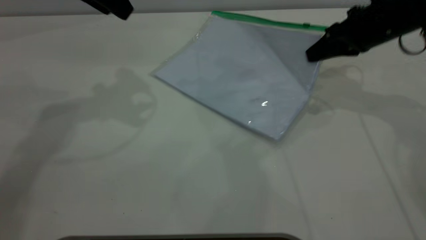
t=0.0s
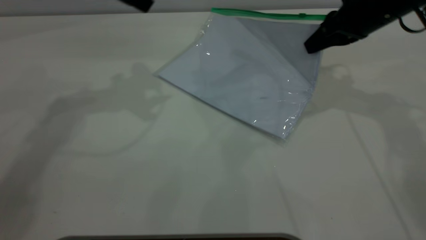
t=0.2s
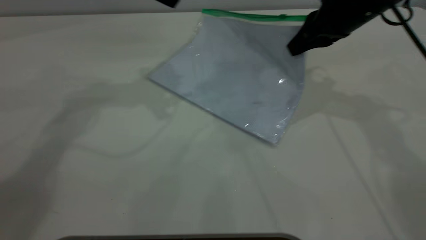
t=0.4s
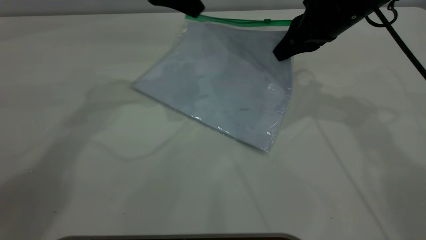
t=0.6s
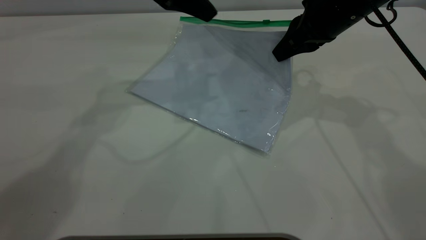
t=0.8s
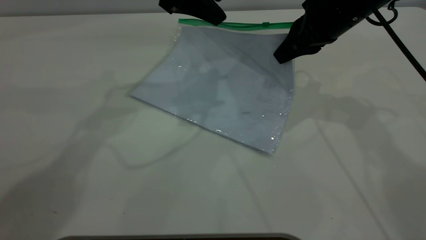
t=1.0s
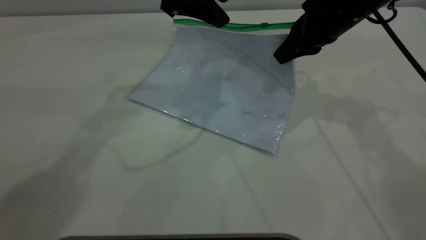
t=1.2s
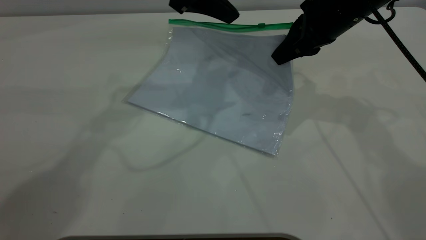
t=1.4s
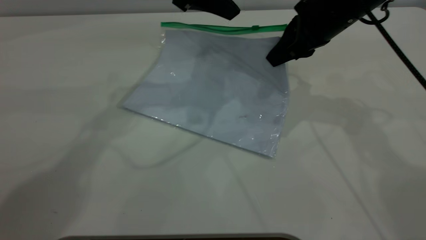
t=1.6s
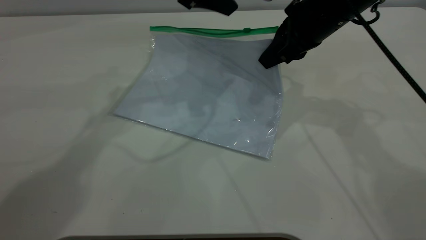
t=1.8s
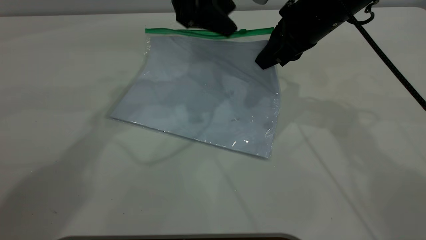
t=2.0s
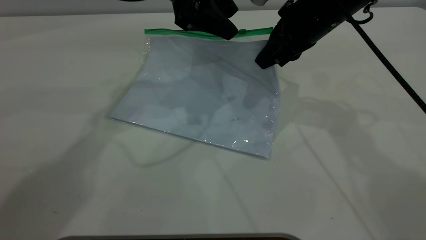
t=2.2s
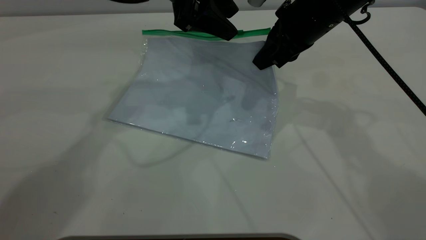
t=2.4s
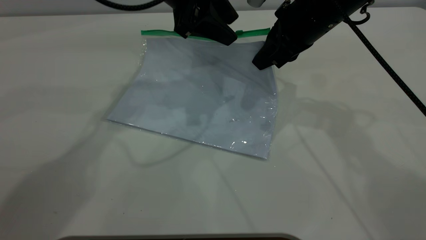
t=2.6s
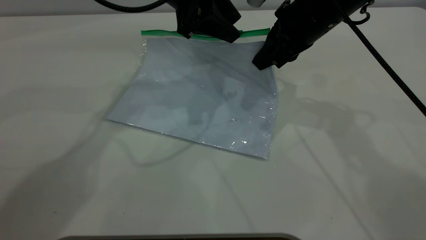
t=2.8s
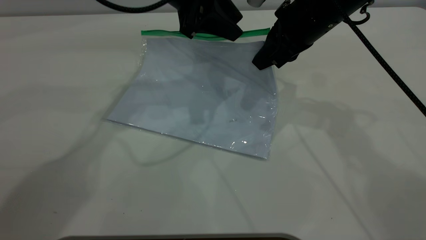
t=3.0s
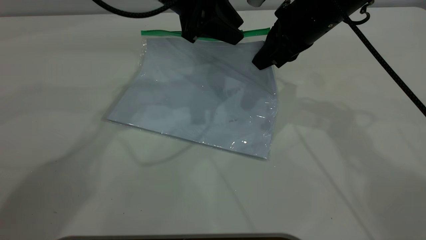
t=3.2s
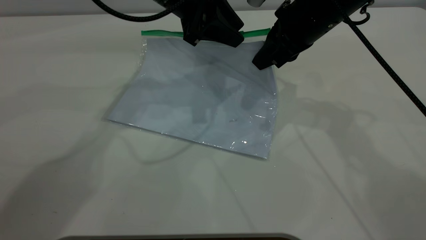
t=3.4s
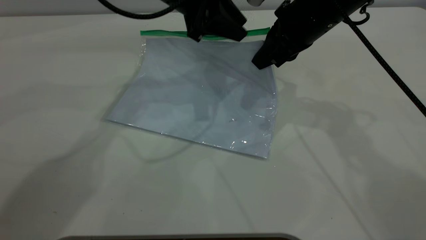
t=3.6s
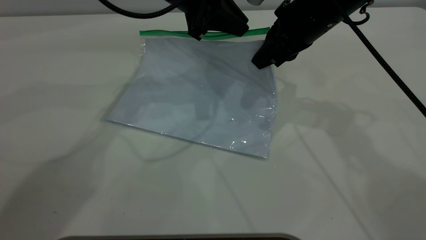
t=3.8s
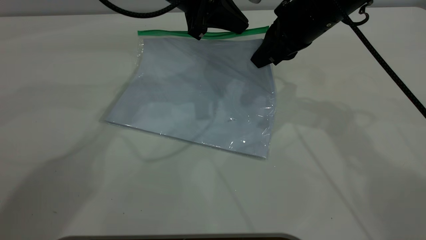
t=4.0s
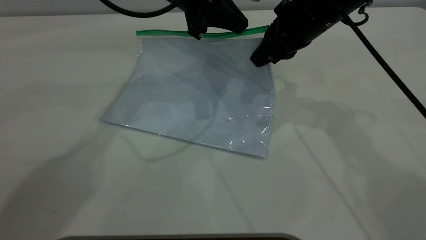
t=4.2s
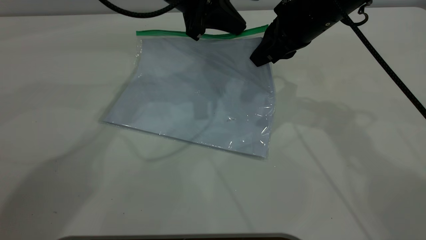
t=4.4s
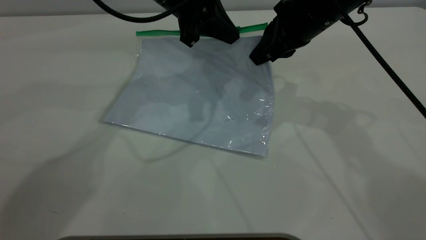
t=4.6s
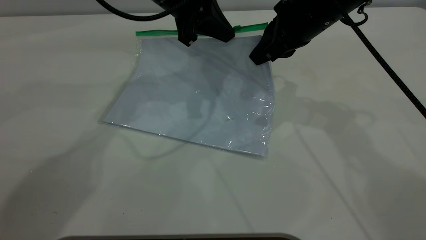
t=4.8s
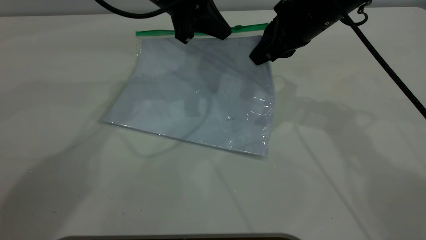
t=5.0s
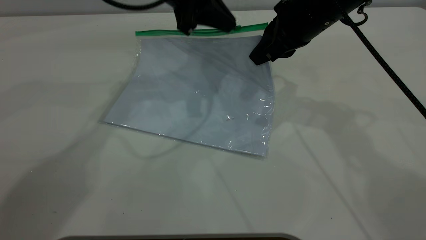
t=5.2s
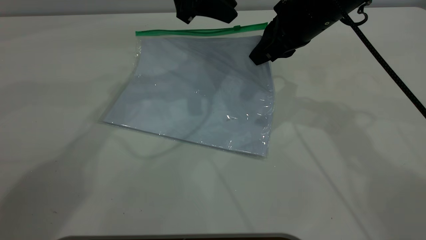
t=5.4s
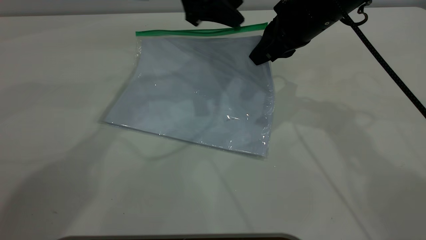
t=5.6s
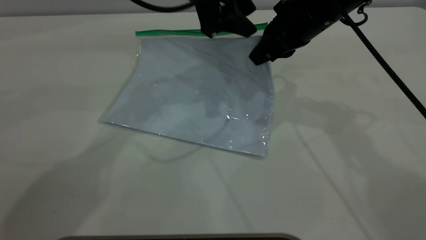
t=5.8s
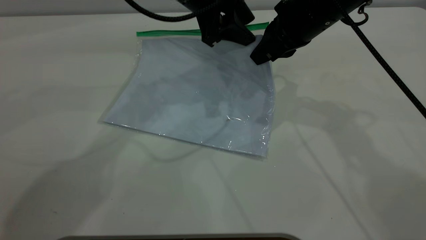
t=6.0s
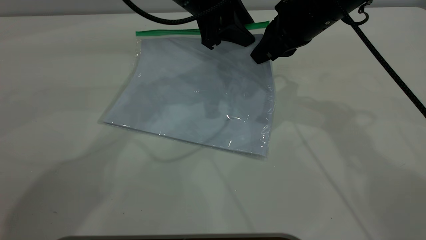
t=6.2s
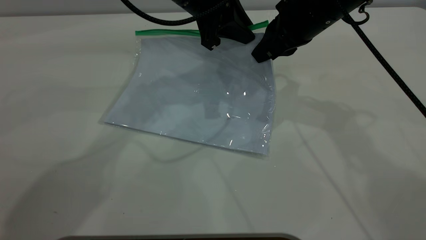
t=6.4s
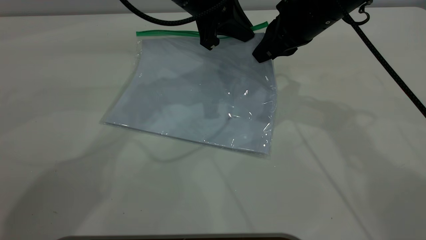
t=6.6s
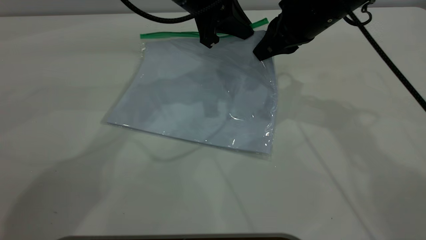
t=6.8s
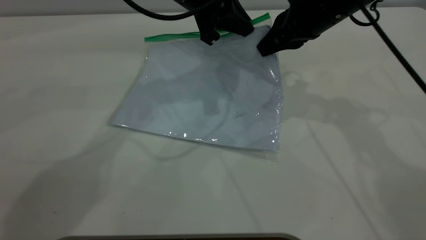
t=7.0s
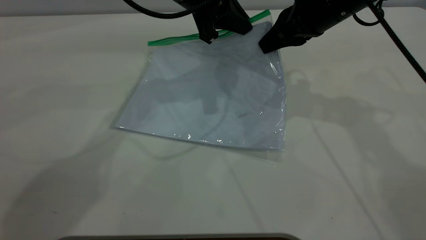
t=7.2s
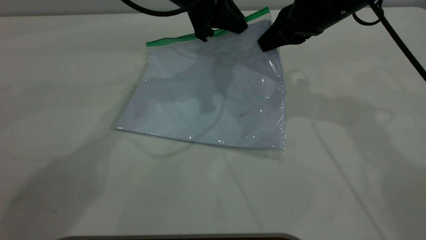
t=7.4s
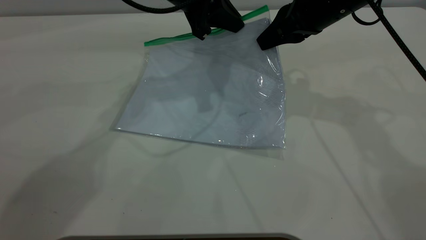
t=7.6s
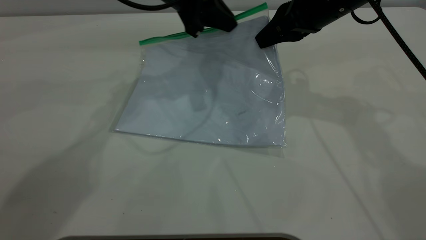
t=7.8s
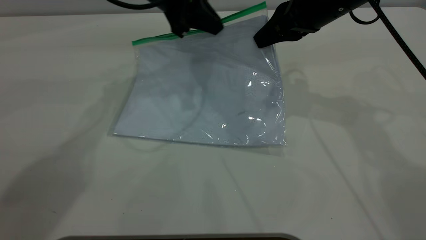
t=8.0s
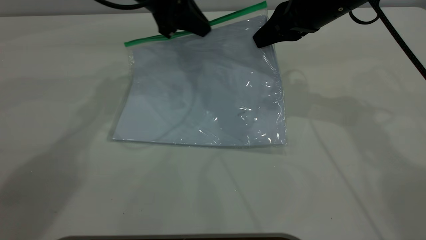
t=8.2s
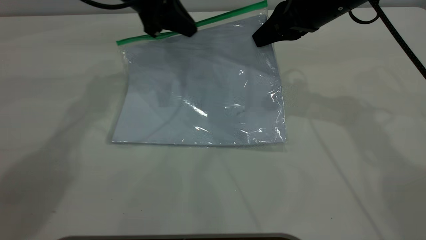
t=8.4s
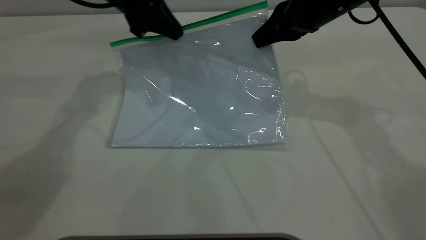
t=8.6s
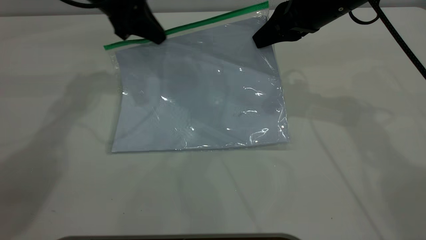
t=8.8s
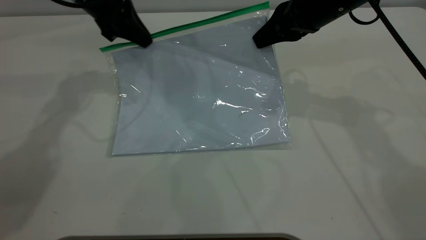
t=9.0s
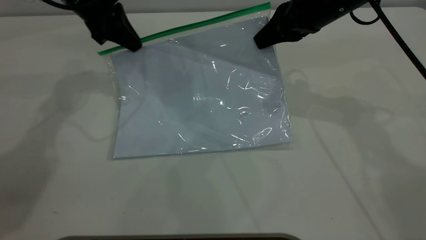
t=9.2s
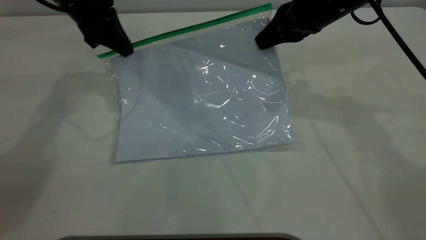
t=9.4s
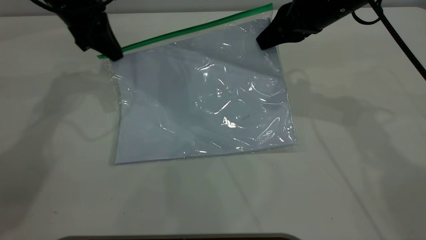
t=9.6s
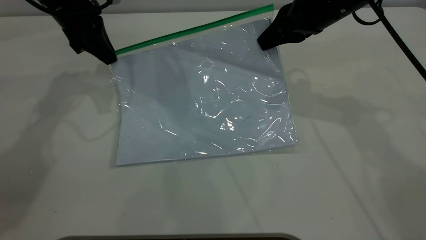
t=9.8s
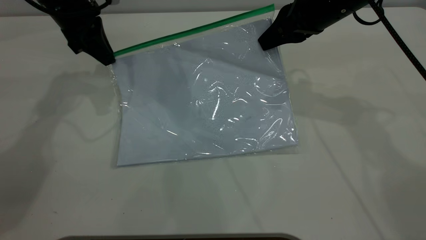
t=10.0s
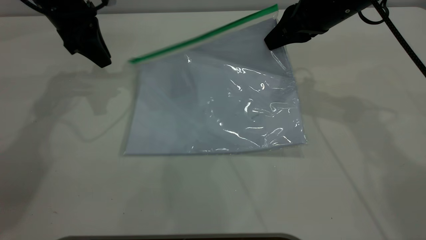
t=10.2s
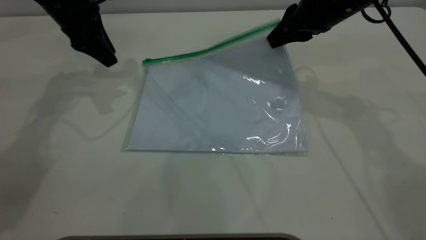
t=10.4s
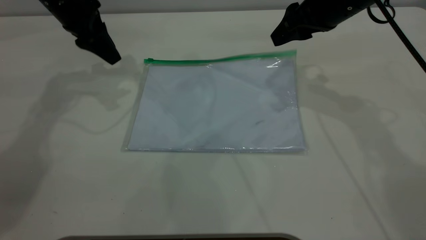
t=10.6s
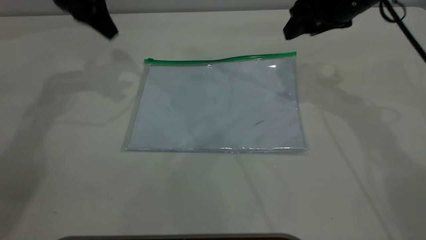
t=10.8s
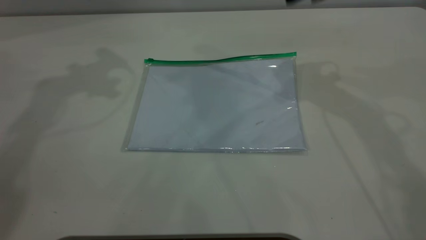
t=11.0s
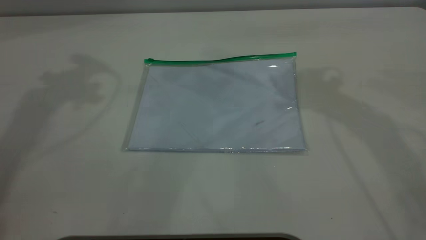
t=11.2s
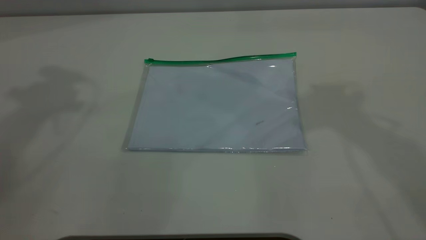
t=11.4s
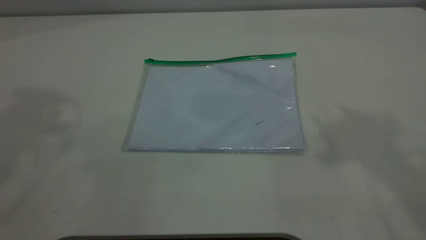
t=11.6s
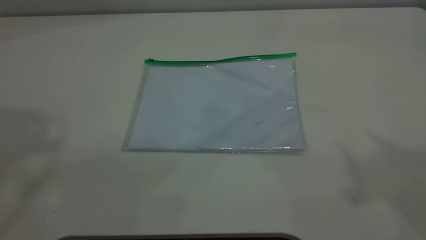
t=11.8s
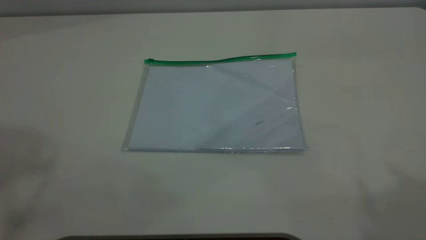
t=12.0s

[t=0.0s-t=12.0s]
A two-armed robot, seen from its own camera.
Step, t=0.2s to t=10.0s: Pulling up the zipper on the transparent plastic bag with the left gripper to close it.
t=0.0s to t=1.6s: The right gripper is displaced to the left by some 10 cm, while the left gripper moves to the right, roughly 15 cm.
t=1.6s to t=3.0s: There are only small adjustments of the grippers.
t=3.0s to t=4.4s: The left gripper closes.
t=4.4s to t=6.0s: The left gripper opens its fingers.
t=6.0s to t=7.6s: The left gripper closes up.
t=7.6s to t=9.0s: The left gripper moves to the left, some 15 cm.
t=9.0s to t=10.4s: The right gripper opens its fingers, while the left gripper opens its fingers.
t=10.4s to t=12.0s: Both grippers move upward and backward, approximately 40 cm. The right gripper opens.

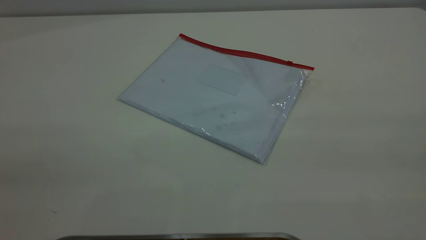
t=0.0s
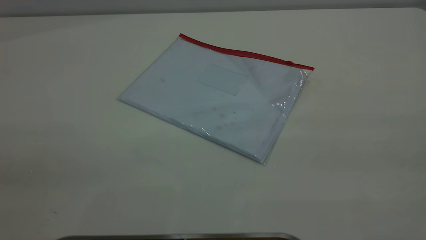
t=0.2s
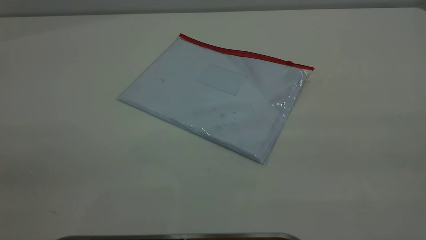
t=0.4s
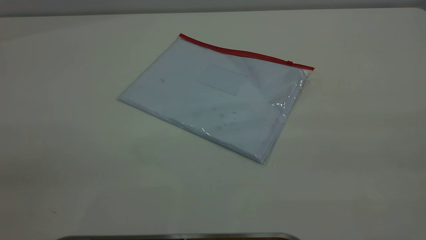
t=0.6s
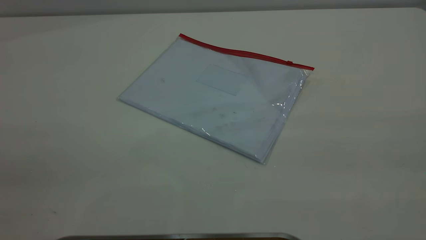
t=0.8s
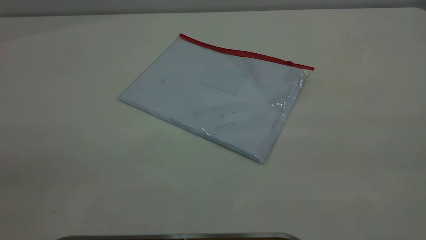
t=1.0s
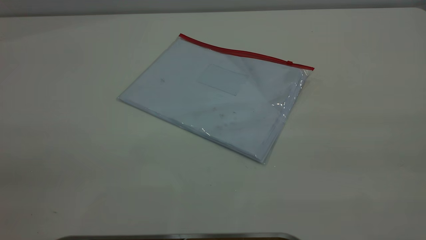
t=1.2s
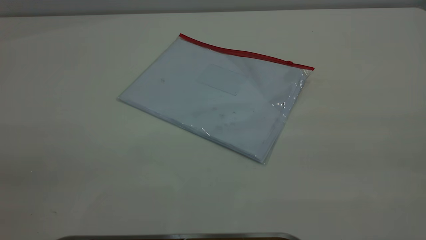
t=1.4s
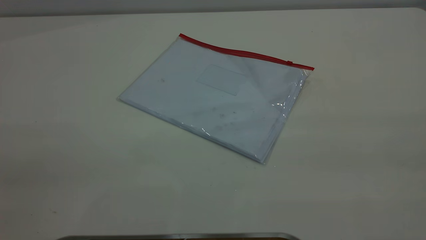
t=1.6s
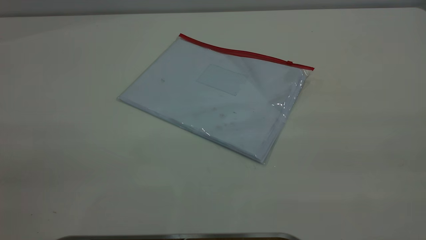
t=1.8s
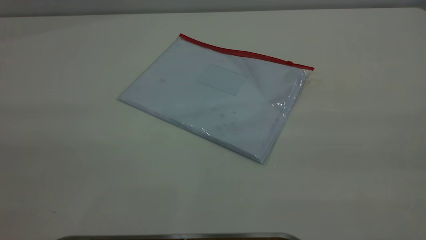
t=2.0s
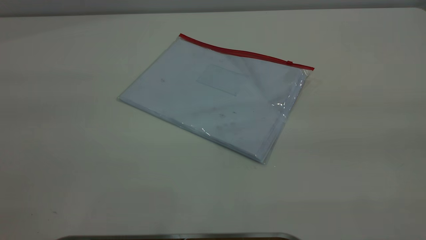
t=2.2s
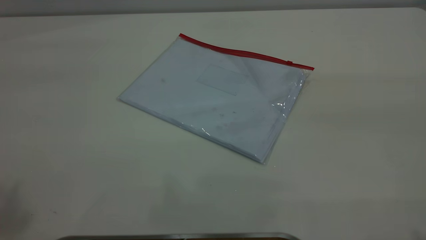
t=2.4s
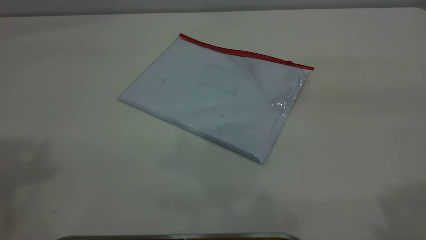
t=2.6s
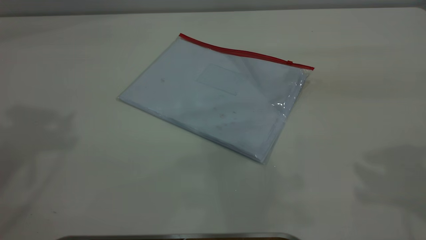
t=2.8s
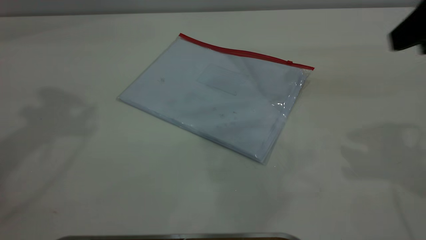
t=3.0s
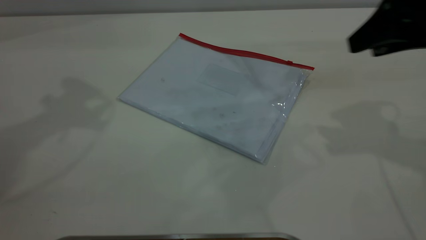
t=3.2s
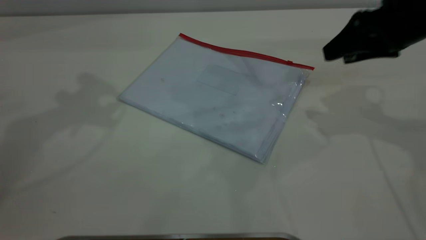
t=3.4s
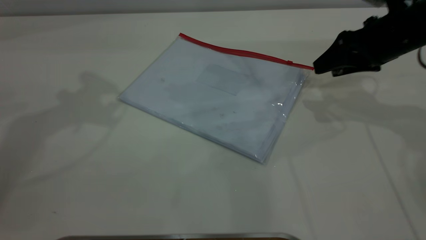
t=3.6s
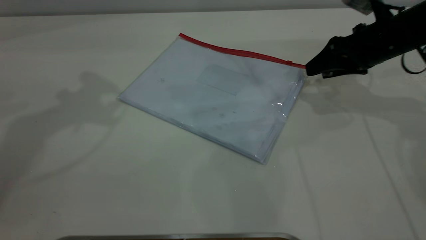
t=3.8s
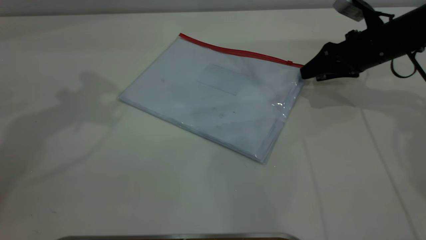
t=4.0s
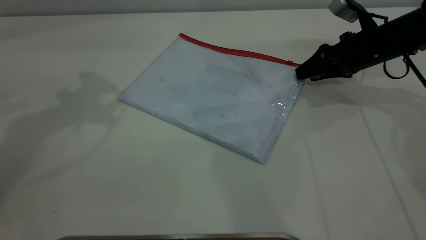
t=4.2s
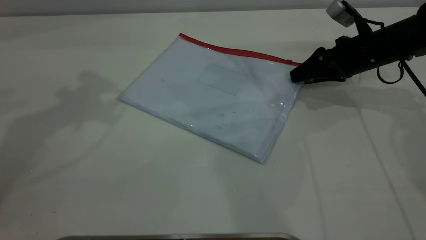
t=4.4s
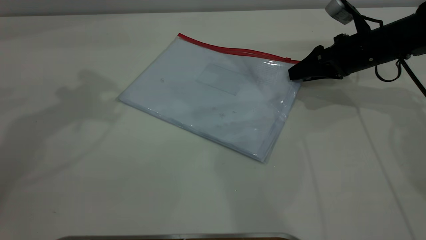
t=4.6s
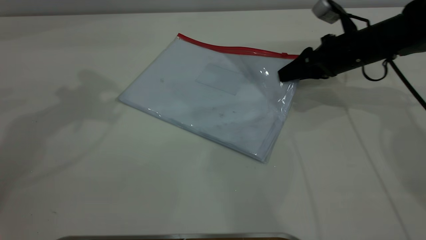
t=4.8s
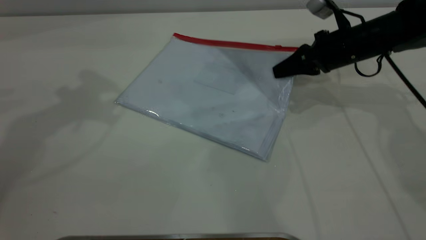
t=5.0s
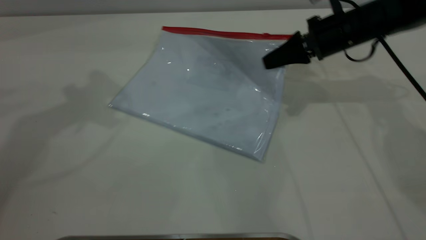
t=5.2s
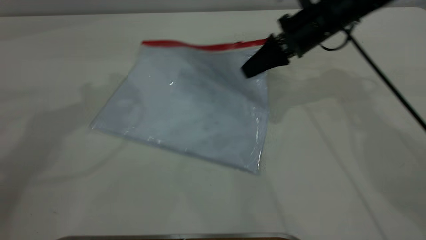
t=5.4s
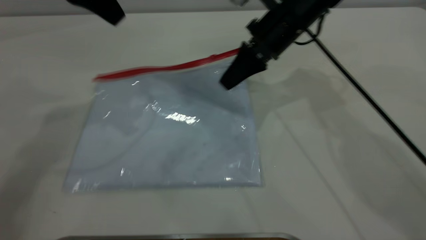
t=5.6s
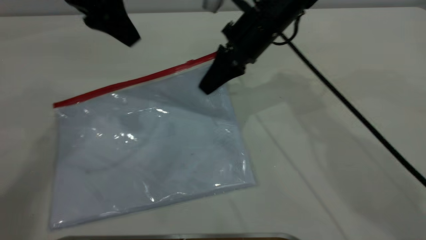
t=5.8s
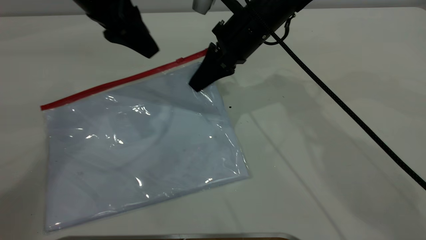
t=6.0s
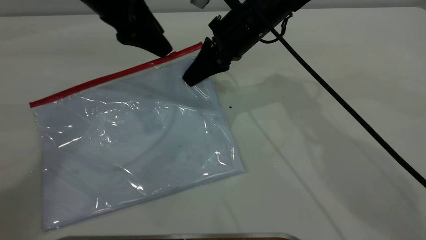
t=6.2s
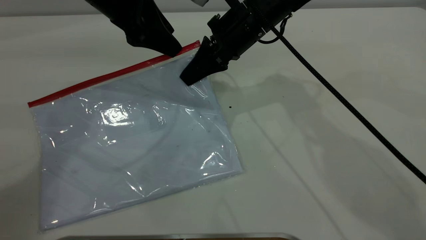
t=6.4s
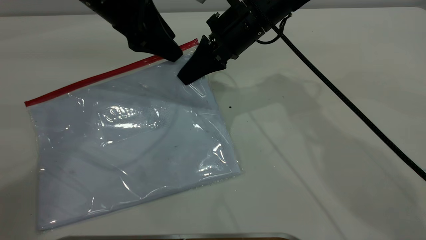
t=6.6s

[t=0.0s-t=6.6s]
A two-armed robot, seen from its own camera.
Step, t=0.0s to t=5.6s: Pick up the transparent plastic bag with the right gripper.
t=0.0s to t=1.6s: Both grippers stay put.
t=1.6s to t=3.2s: The right gripper goes some 35 cm forward and downward.
t=3.2s to t=5.0s: The right gripper moves downward and forward, roughly 20 cm, and closes up.
t=5.0s to t=6.6s: The right gripper is displaced to the left by some 15 cm, while the left gripper goes about 15 cm downward and to the right.
